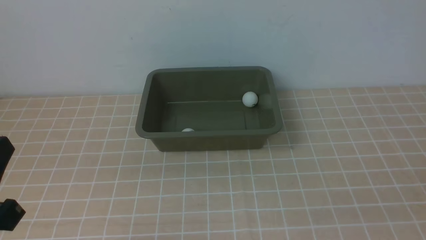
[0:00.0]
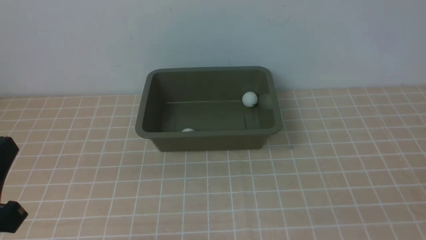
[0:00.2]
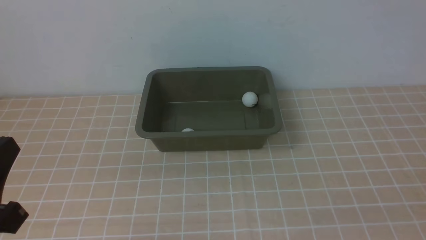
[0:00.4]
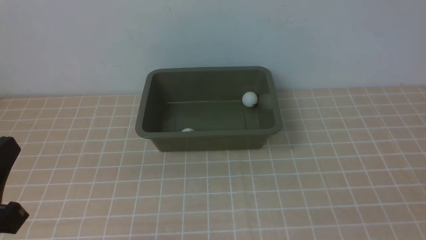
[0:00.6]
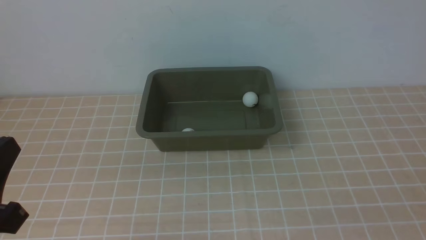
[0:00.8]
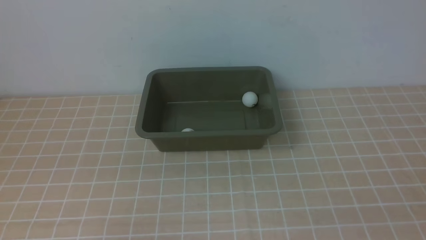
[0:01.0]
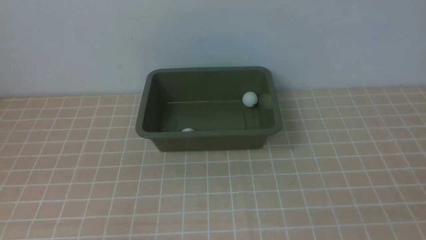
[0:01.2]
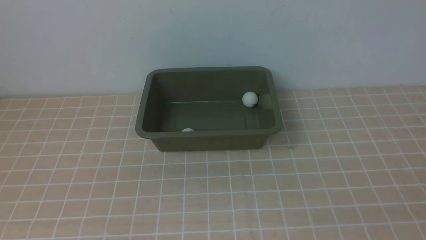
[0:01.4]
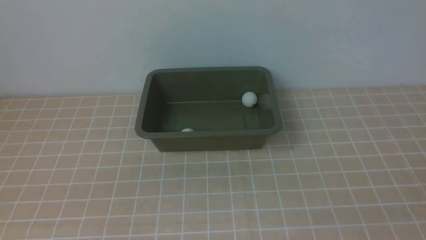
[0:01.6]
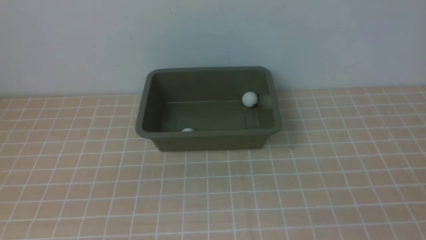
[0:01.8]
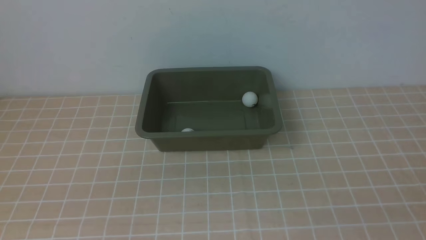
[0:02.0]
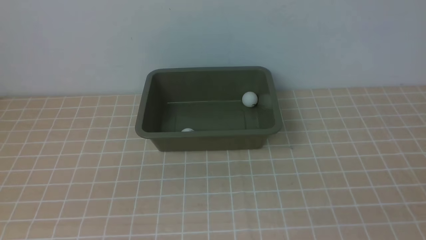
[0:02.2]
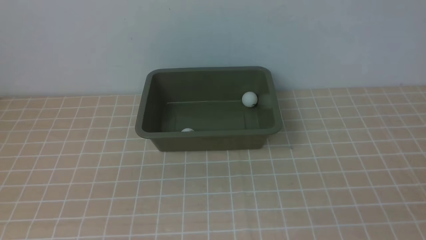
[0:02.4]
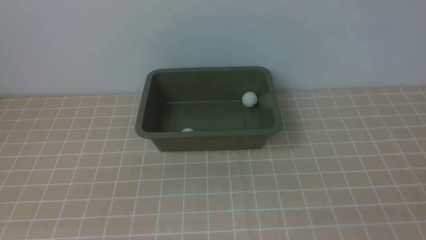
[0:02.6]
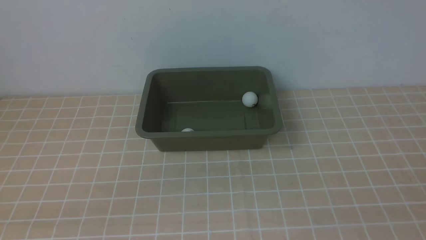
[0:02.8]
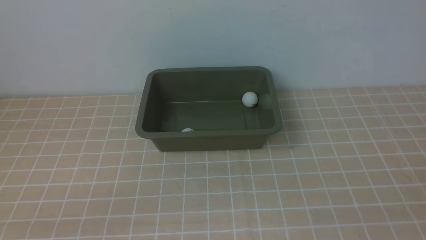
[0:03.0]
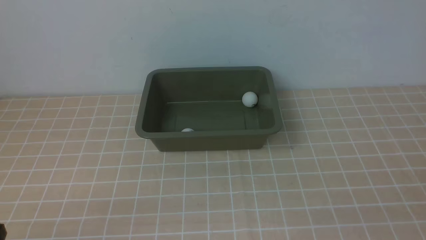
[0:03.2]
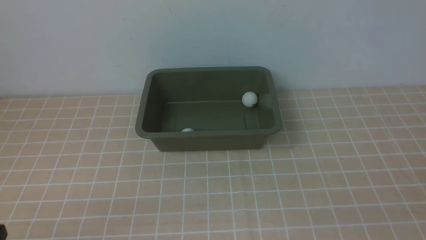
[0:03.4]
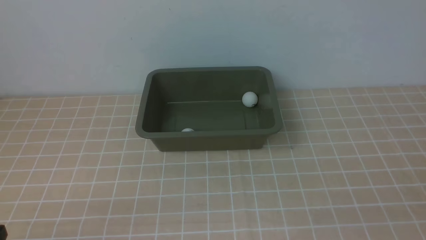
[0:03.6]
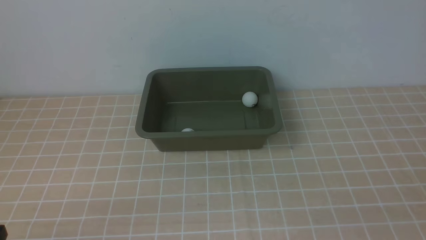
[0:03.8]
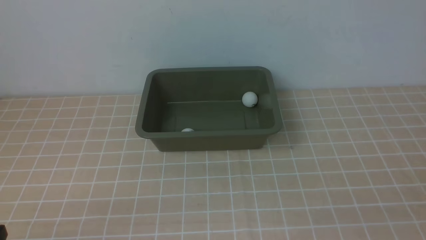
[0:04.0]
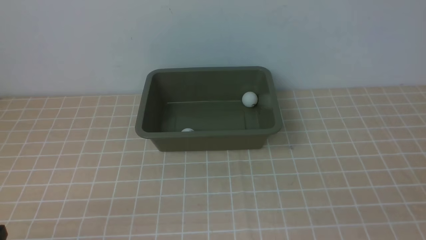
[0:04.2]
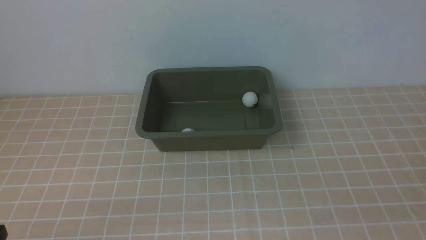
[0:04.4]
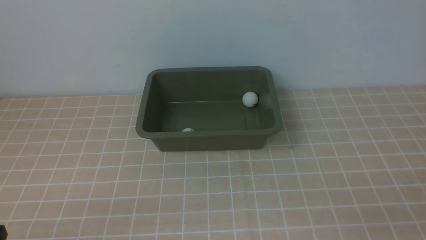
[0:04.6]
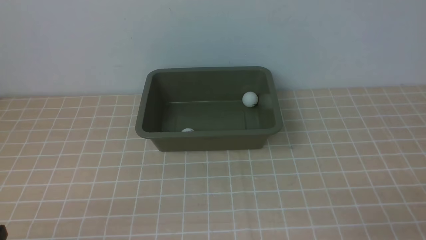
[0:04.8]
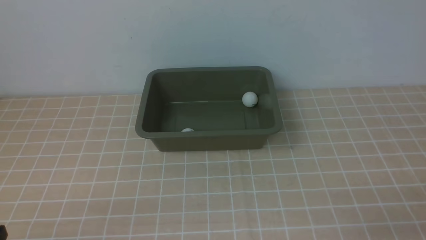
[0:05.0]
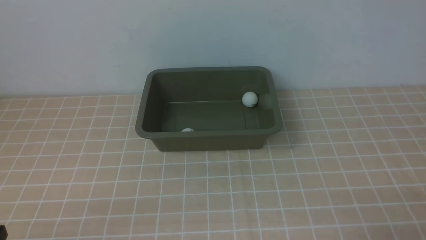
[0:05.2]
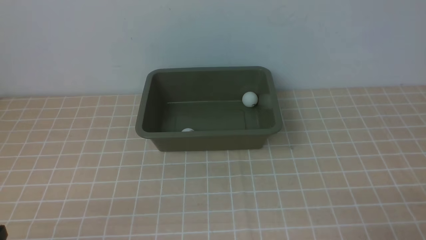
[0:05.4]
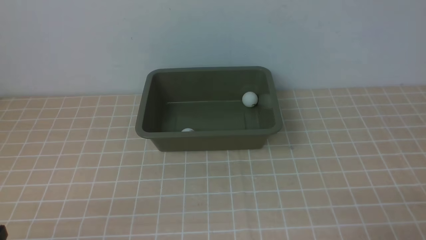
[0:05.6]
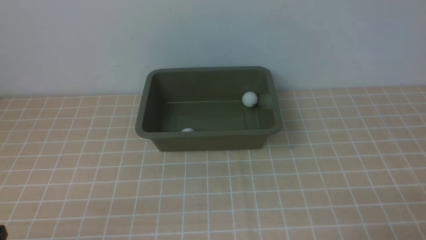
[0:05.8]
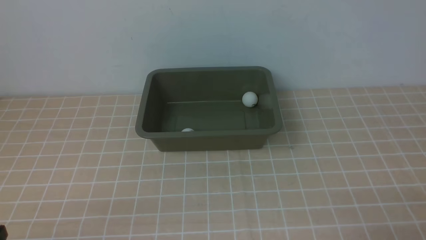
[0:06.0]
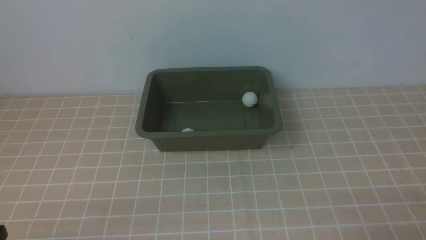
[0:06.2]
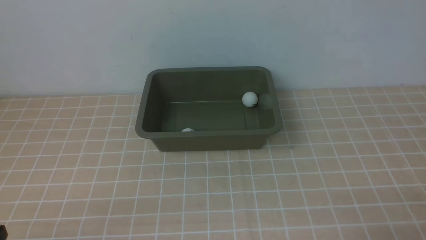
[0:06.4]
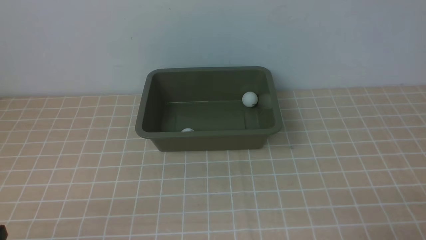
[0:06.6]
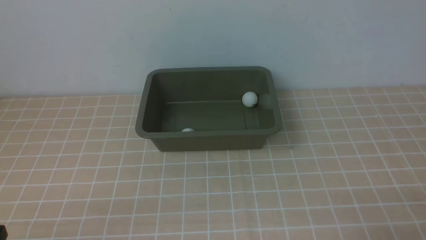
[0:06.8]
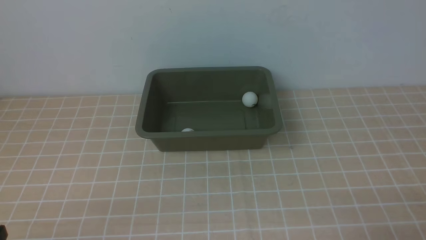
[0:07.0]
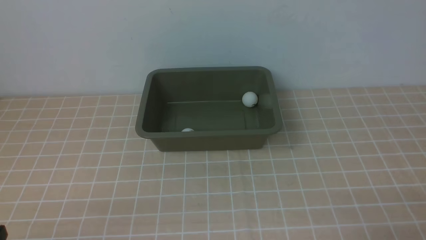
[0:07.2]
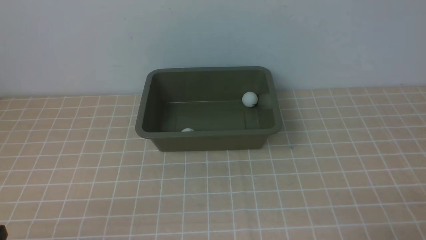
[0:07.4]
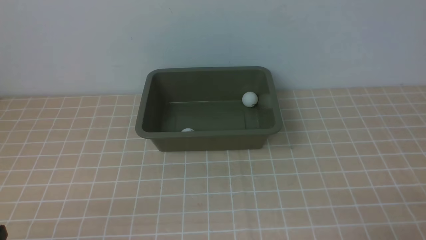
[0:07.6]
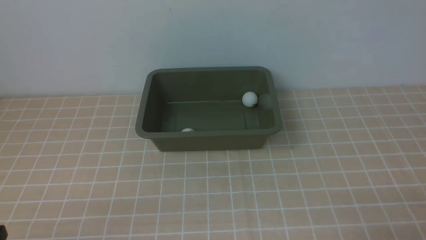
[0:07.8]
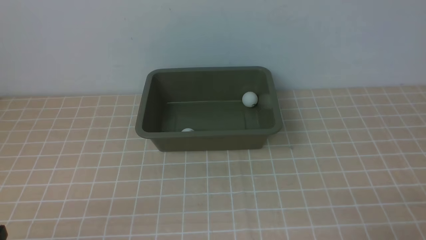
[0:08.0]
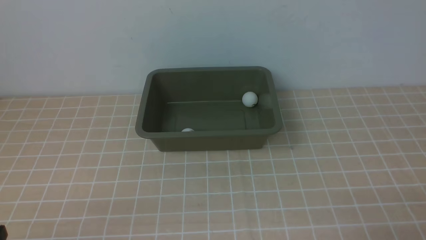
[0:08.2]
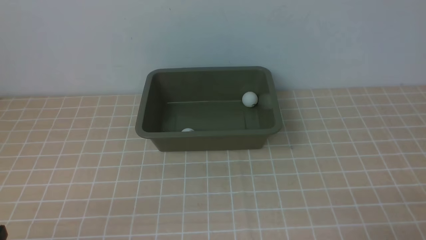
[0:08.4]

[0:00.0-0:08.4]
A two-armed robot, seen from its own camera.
0:00.0 to 0:01.4: The left gripper ends up about 5 cm from where it was.
0:05.6 to 0:08.4: Both grippers stay put.
